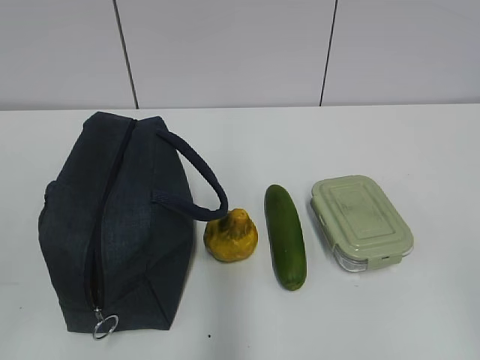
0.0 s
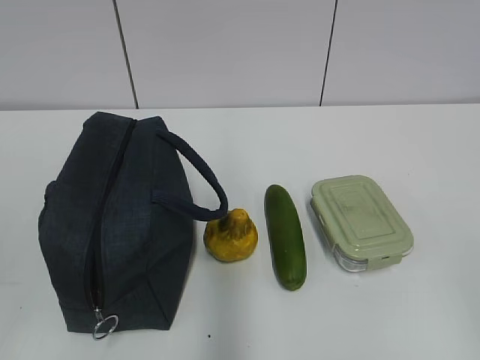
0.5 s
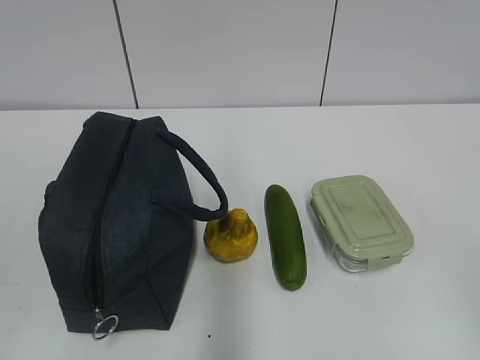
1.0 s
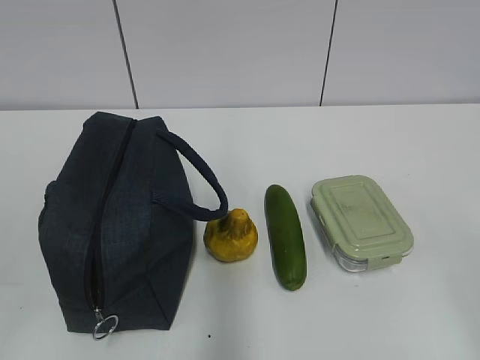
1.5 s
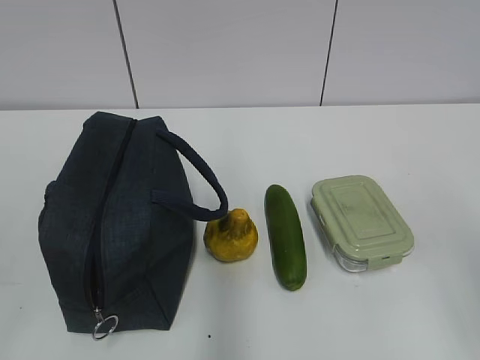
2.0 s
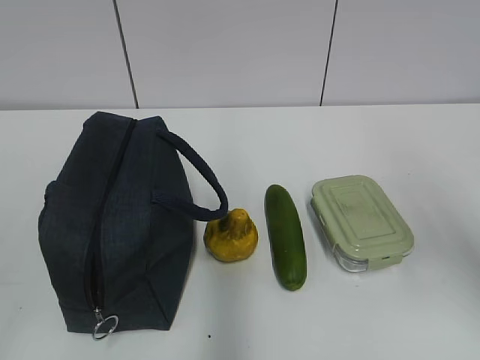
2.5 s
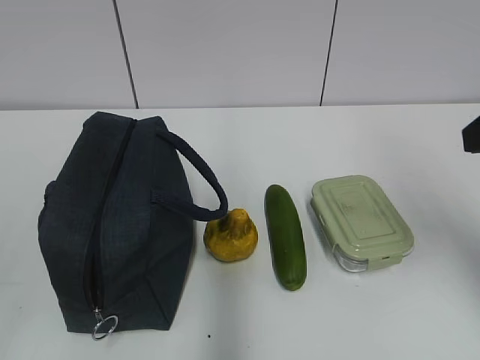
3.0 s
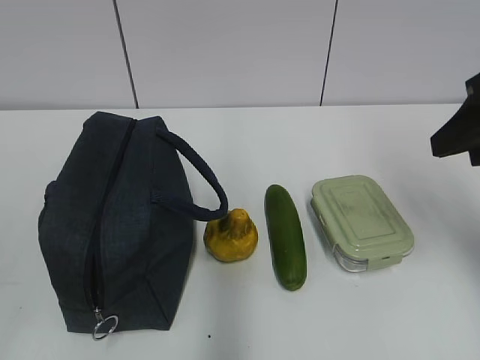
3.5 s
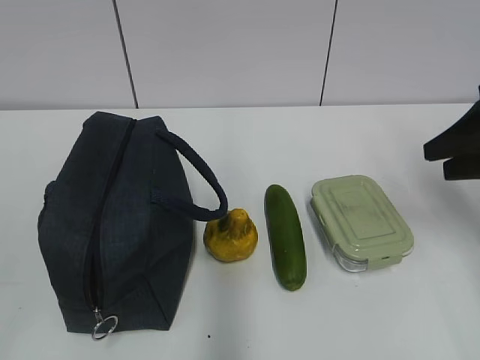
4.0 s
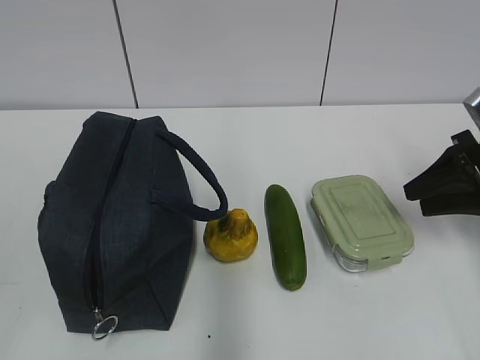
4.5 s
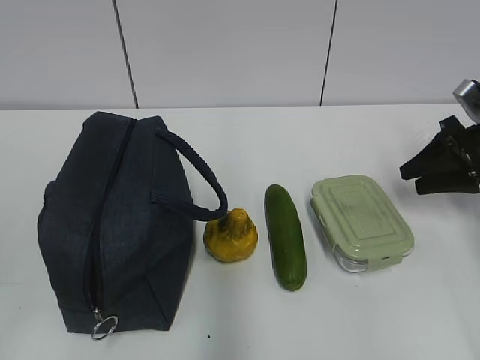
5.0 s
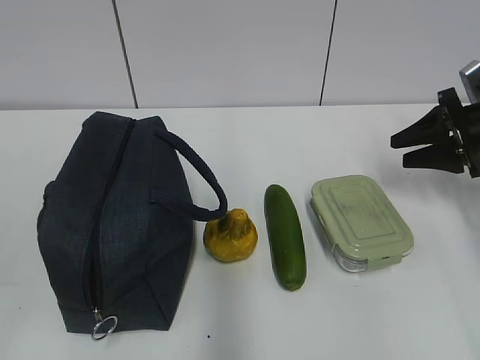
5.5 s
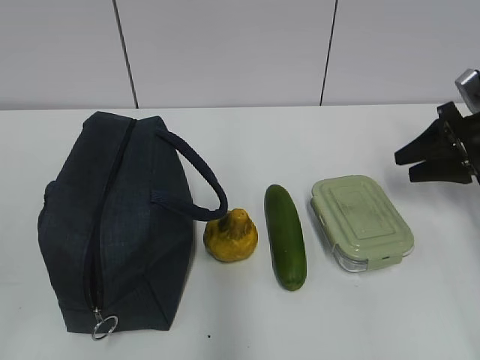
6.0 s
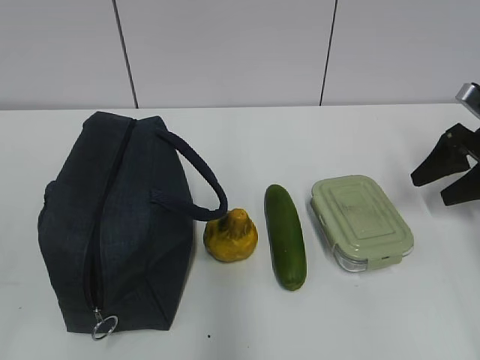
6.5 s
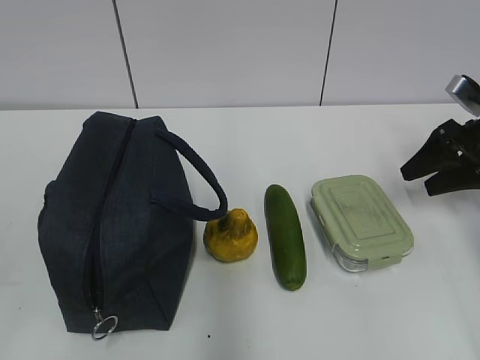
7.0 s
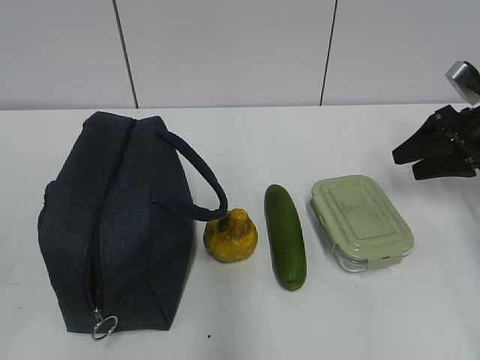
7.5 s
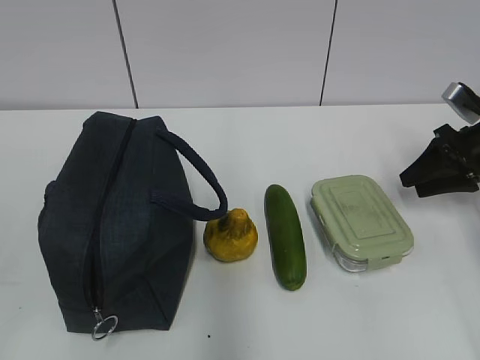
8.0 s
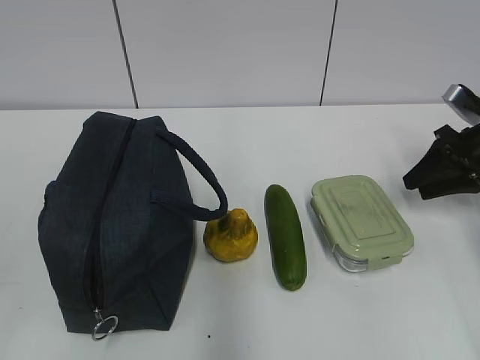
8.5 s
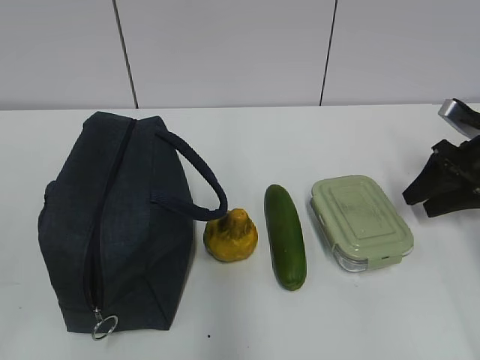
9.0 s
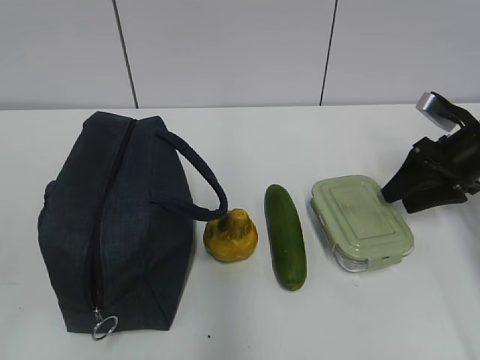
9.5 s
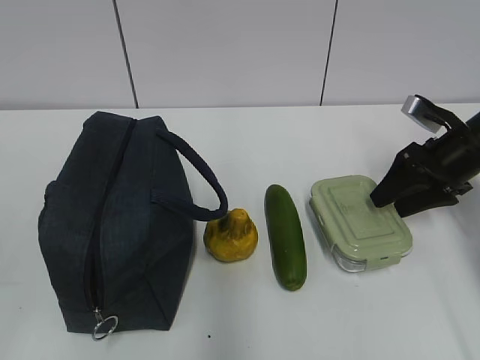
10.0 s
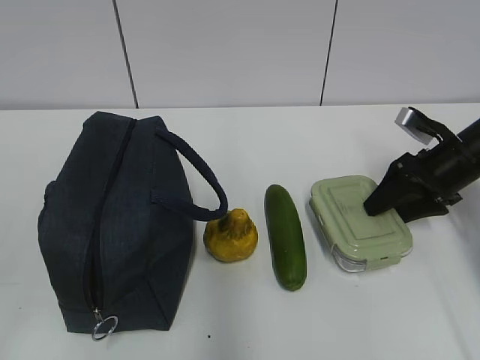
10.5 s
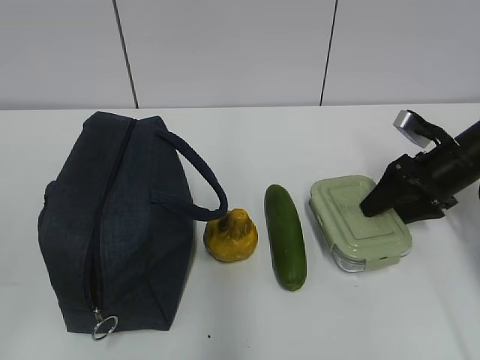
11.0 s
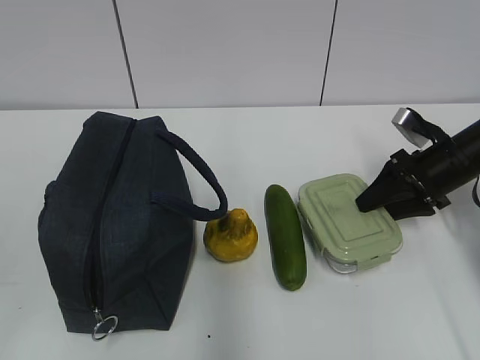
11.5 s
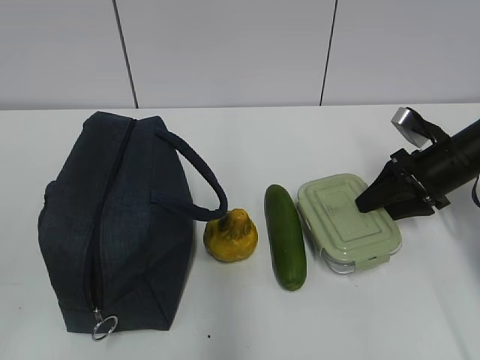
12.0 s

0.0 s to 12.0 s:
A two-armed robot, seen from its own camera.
2.0 to 4.0 s: The right gripper shifts approximately 25 cm forward.
4.0 to 6.0 s: The right gripper travels forward and downward by about 10 cm.
6.0 to 8.0 s: The grippers stay close to where they were, moving slightly.
8.0 to 10.0 s: The right gripper shifts by some 5 cm.
10.0 to 12.0 s: The grippers stay close to where they were, moving slightly.

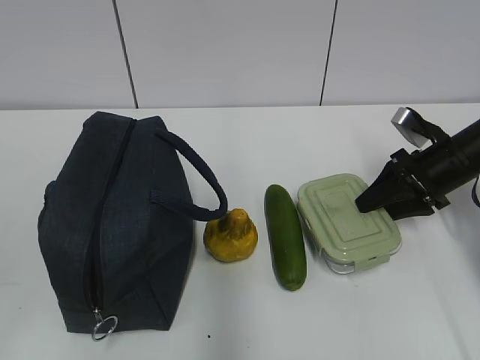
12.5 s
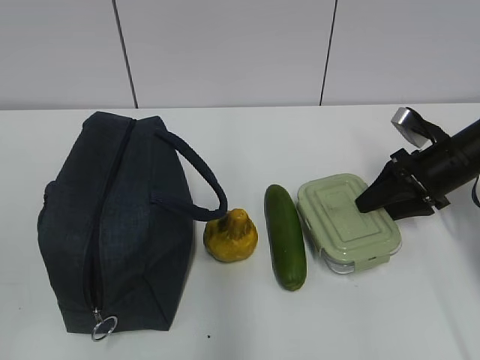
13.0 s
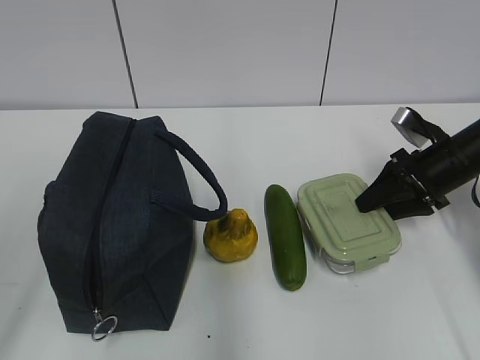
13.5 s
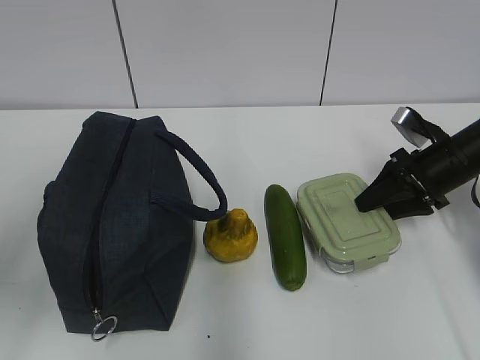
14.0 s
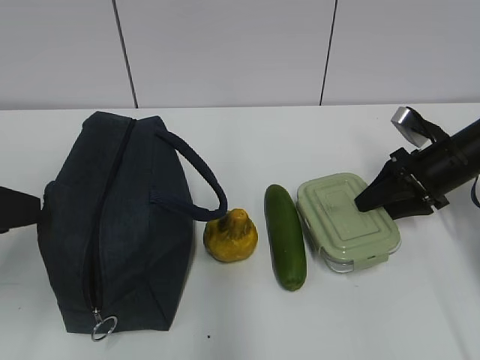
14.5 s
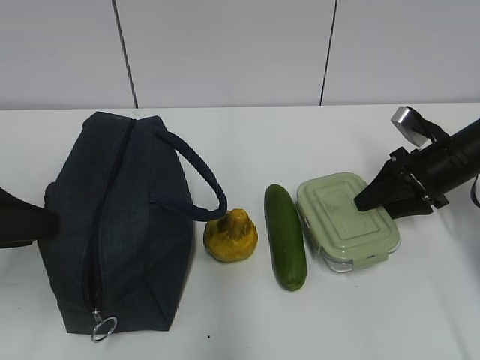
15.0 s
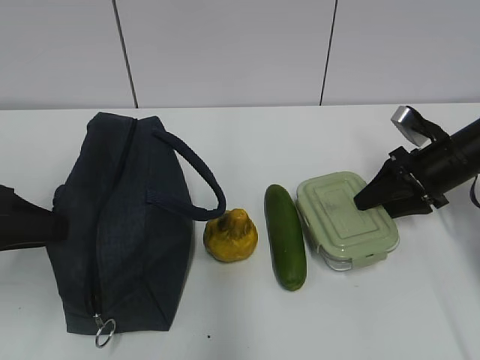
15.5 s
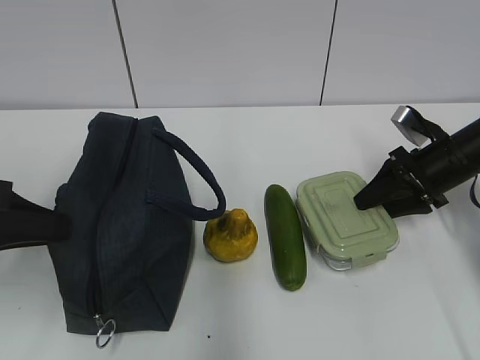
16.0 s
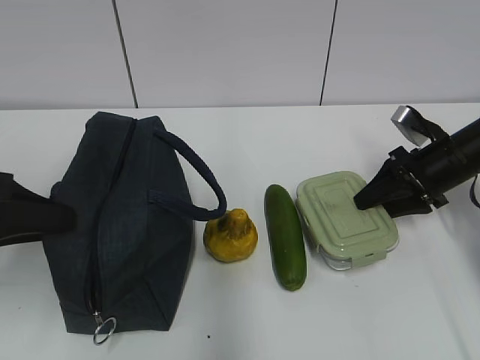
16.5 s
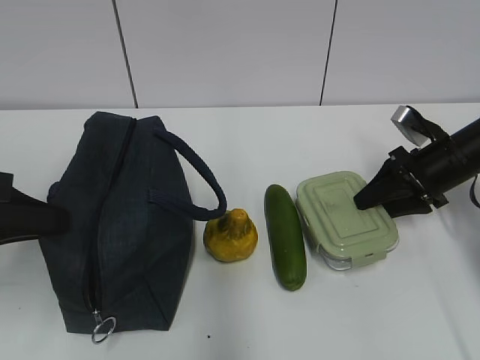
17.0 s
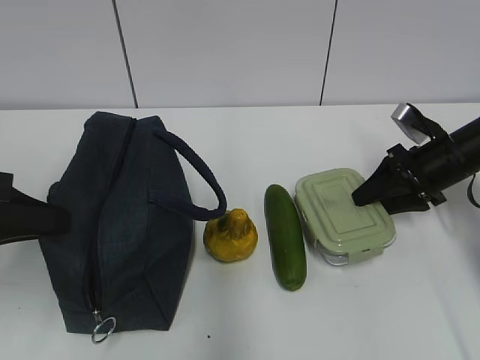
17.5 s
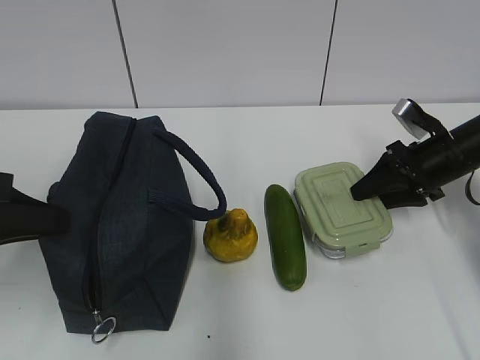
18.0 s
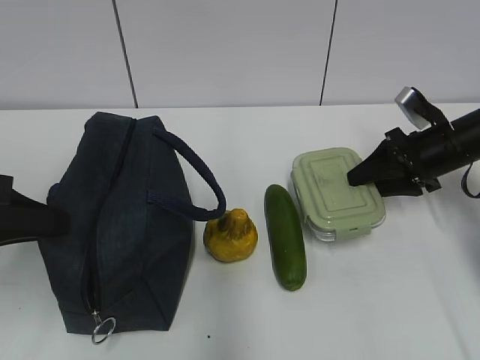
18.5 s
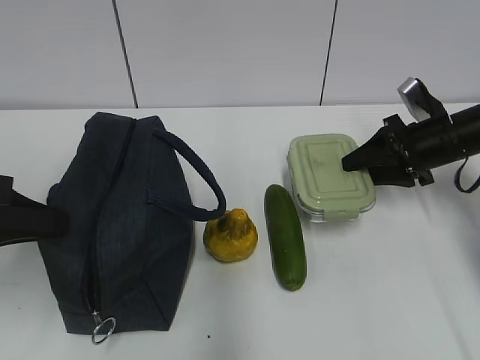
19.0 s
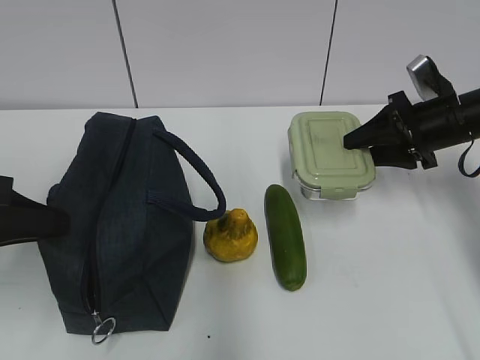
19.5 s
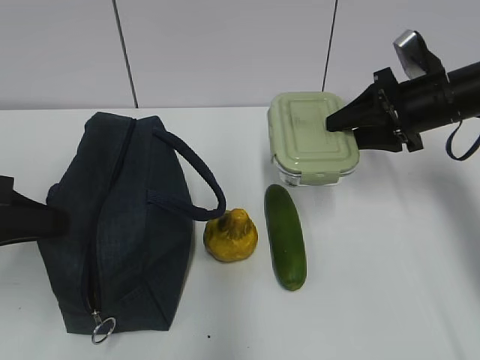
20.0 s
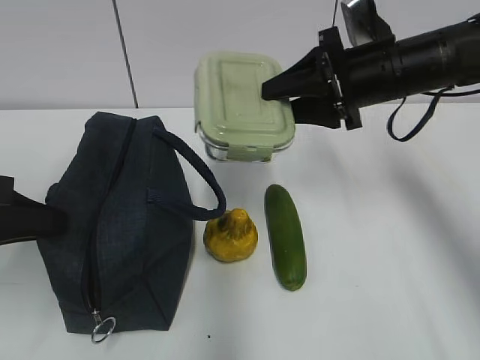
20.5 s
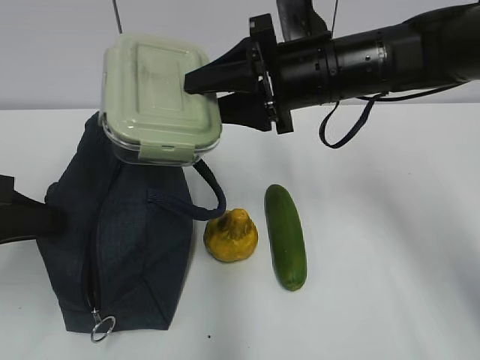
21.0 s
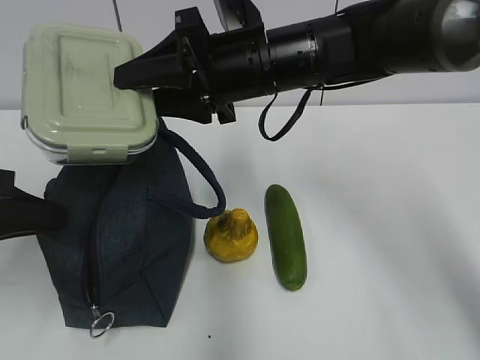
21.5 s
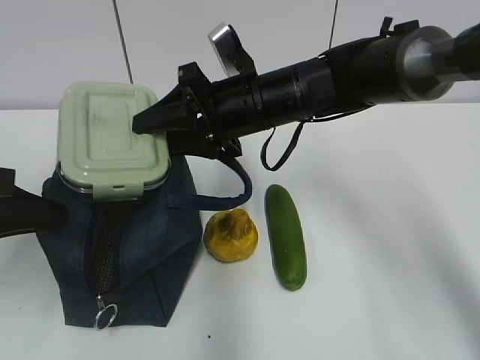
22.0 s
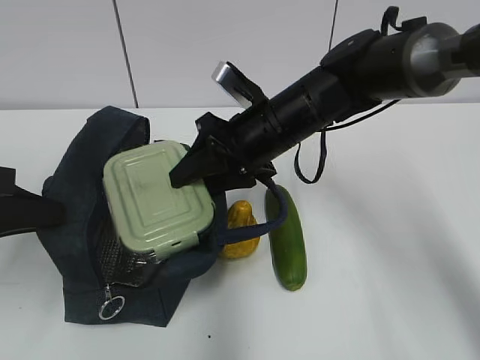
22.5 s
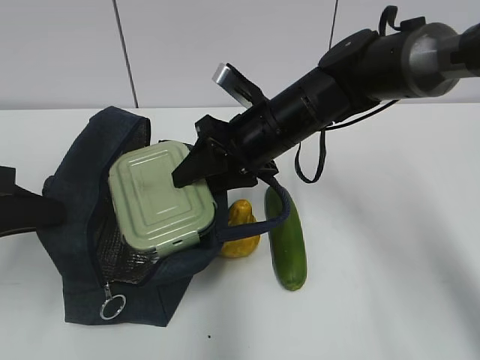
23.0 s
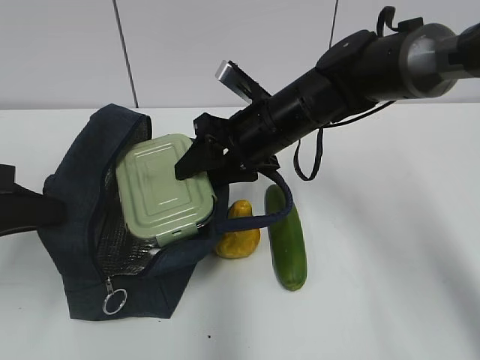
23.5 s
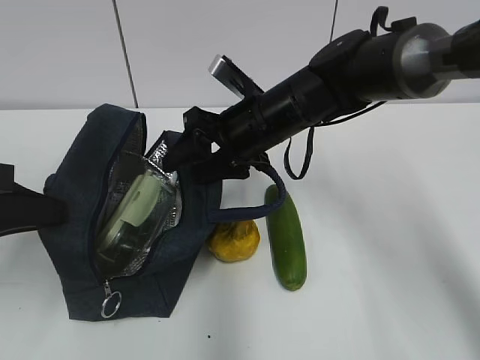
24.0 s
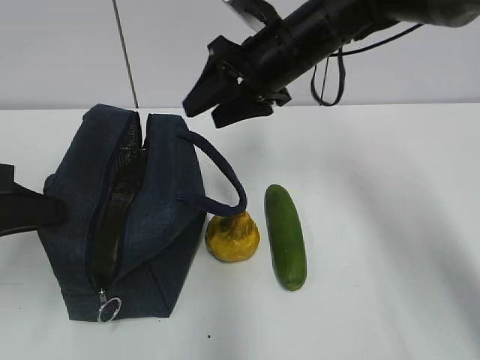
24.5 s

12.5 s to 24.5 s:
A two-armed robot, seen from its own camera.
Step, 15.5 to 18.0 s: Grab the lunch box with your right hand.
Step, 18.5 to 24.0 s: Place it into the bag with your right hand.
12.5 to 14.5 s: The left gripper heads forward, covering roughly 20 cm.
14.5 to 16.5 s: The left gripper closes up.
16.5 to 18.5 s: The left gripper closes.
18.5 to 20.5 s: The right gripper shifts some 15 cm to the left and upward.
20.5 to 22.5 s: The right gripper shifts approximately 10 cm to the left and downward.
22.5 to 24.5 s: The right gripper moves upward, roughly 10 cm.

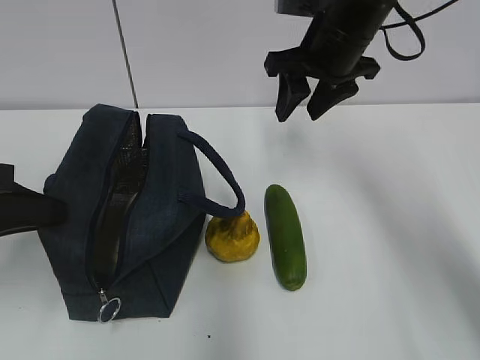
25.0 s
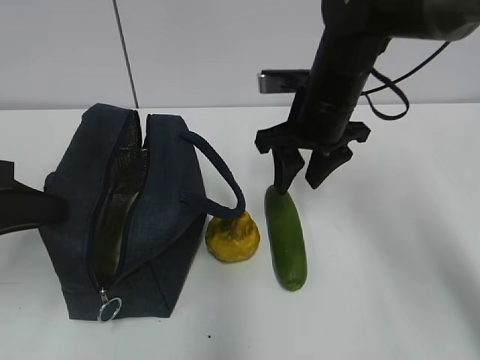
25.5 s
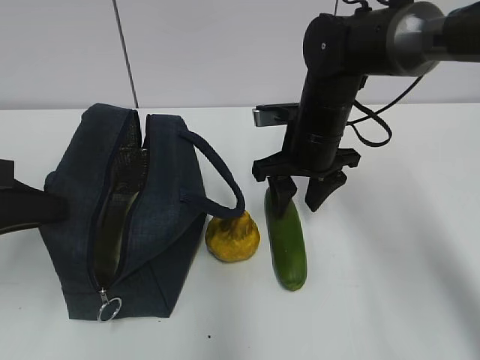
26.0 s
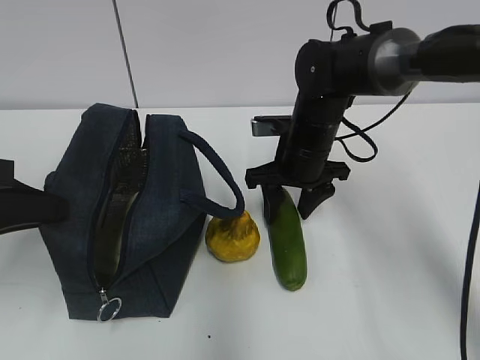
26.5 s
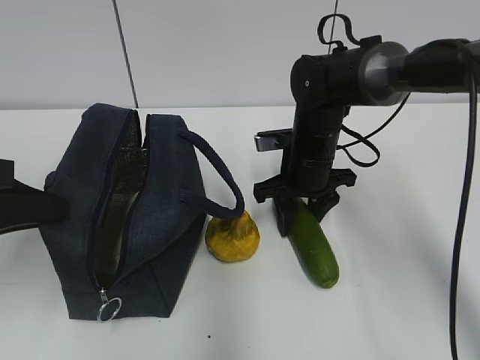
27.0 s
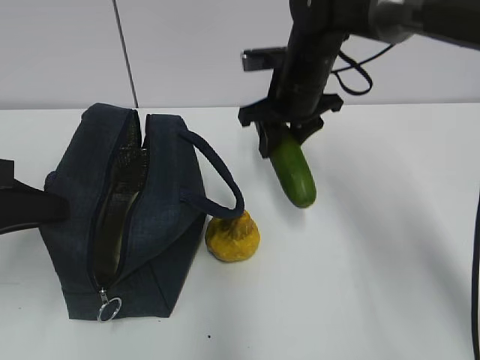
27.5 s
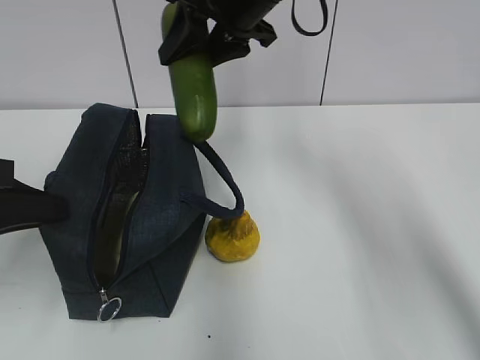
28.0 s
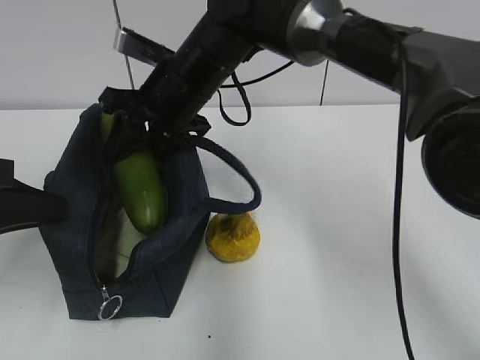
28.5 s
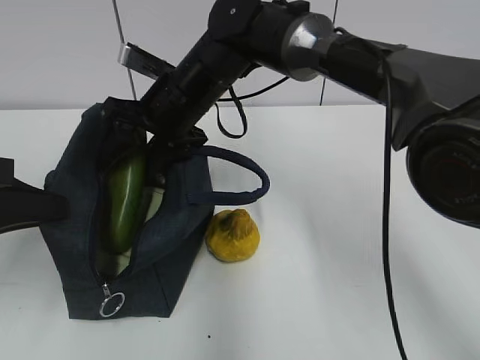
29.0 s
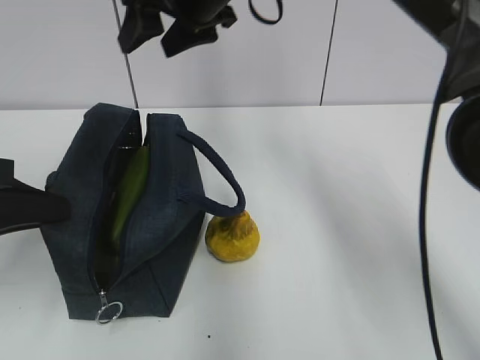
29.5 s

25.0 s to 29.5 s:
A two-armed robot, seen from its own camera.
Step, 25.0 to 27.0 s: Grab the cucumber with your right hand.
Step, 27.5 to 29.0 s: Place it into the bag with your right hand.
25.0 to 27.0 s: The right gripper is displaced downward by approximately 15 cm.
27.0 to 29.5 s: The right gripper swings up and down, roughly 20 cm each way, with 2 reversals.
